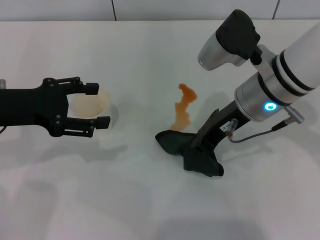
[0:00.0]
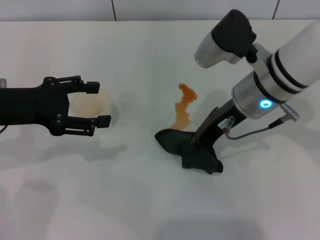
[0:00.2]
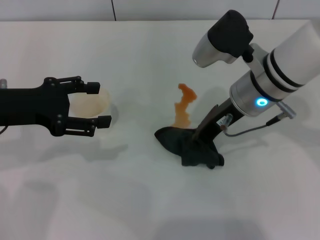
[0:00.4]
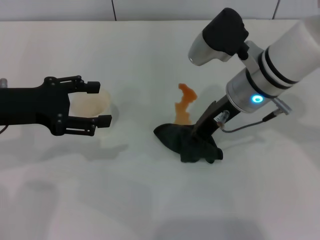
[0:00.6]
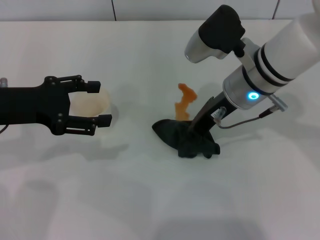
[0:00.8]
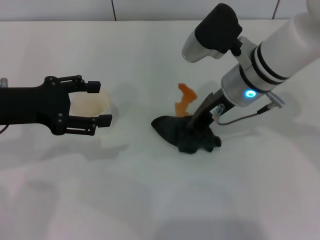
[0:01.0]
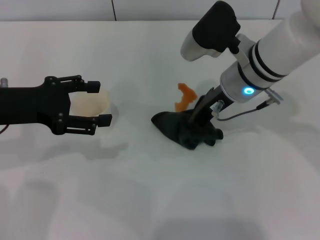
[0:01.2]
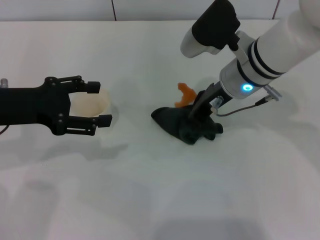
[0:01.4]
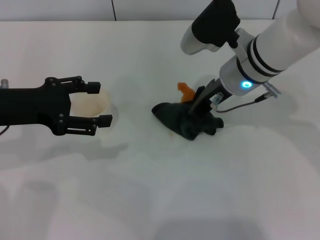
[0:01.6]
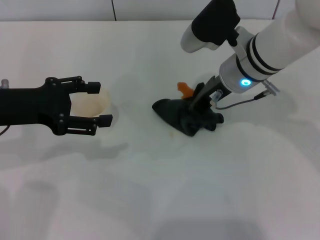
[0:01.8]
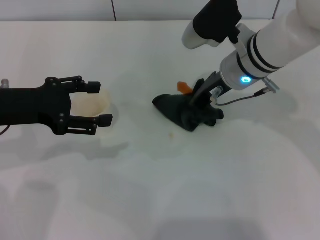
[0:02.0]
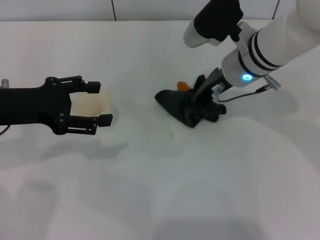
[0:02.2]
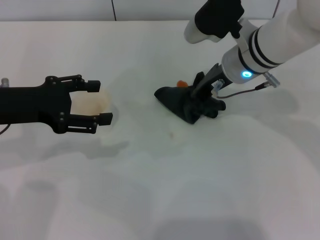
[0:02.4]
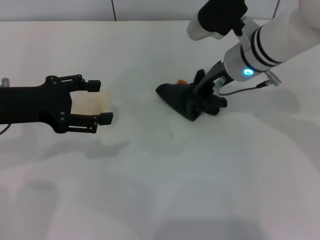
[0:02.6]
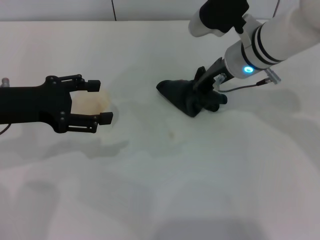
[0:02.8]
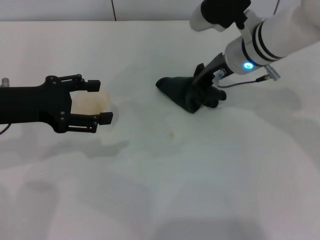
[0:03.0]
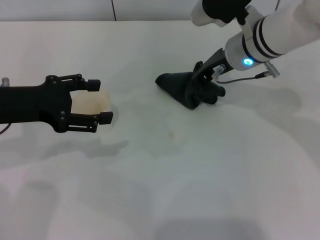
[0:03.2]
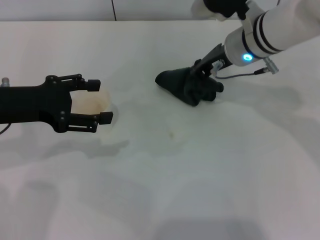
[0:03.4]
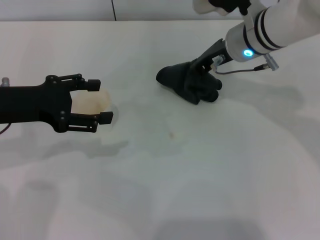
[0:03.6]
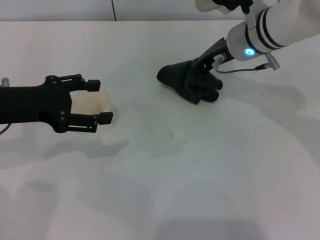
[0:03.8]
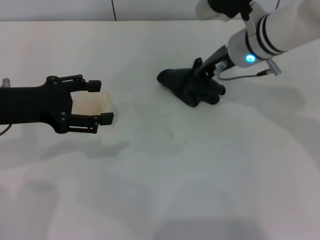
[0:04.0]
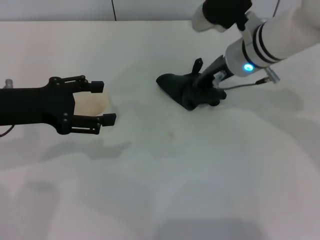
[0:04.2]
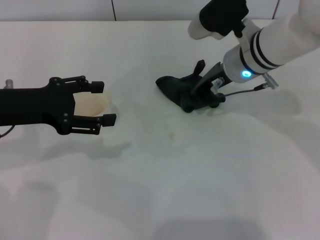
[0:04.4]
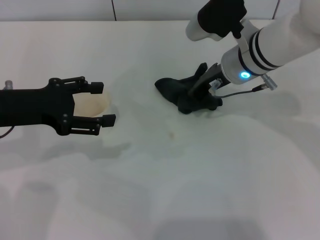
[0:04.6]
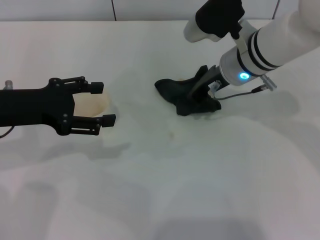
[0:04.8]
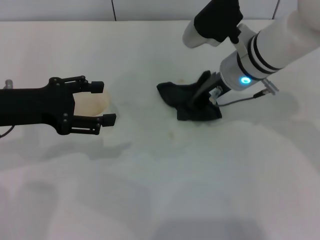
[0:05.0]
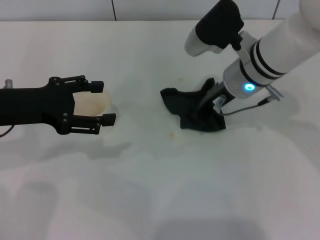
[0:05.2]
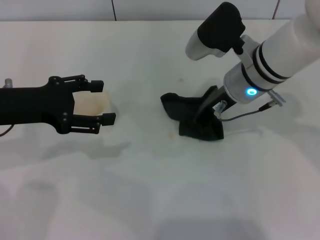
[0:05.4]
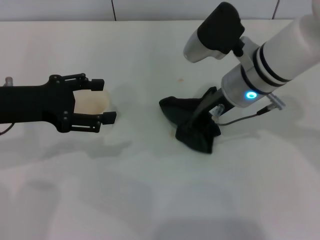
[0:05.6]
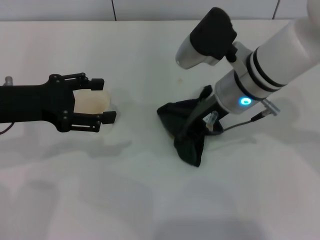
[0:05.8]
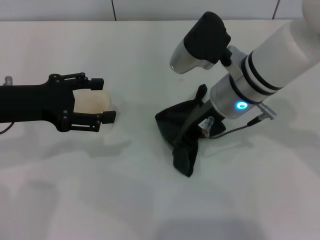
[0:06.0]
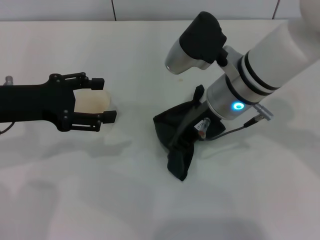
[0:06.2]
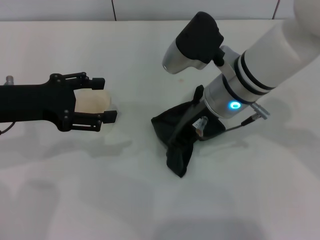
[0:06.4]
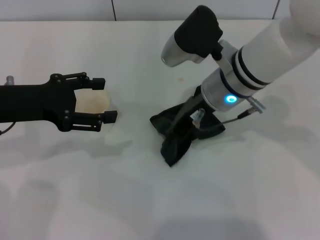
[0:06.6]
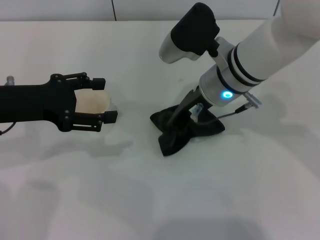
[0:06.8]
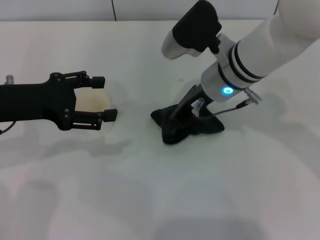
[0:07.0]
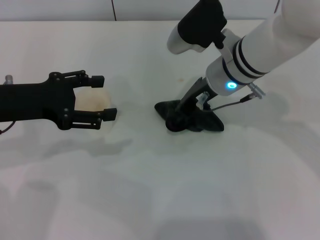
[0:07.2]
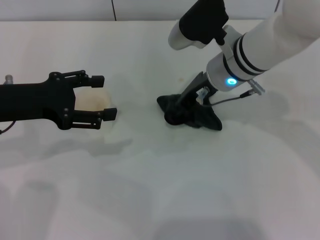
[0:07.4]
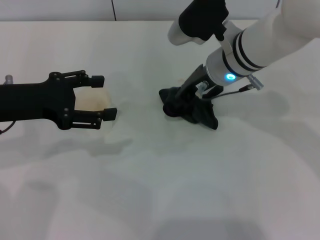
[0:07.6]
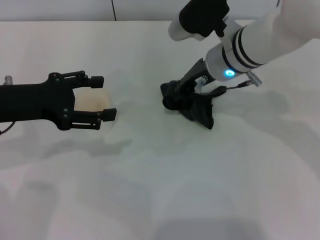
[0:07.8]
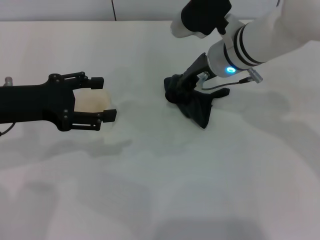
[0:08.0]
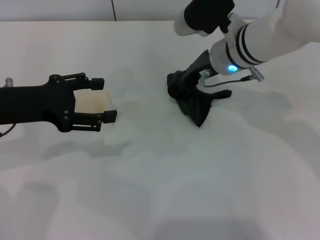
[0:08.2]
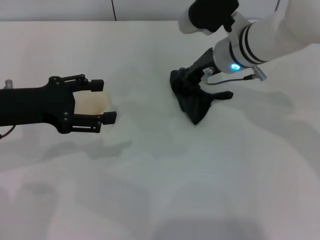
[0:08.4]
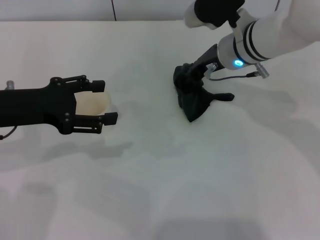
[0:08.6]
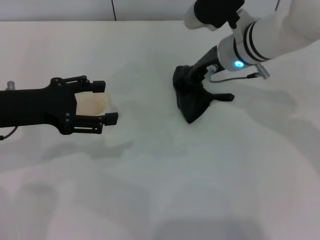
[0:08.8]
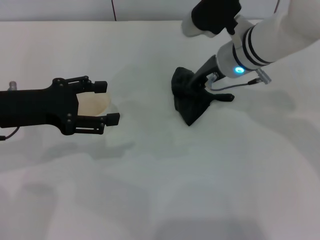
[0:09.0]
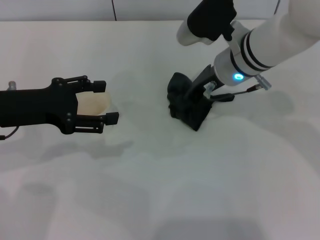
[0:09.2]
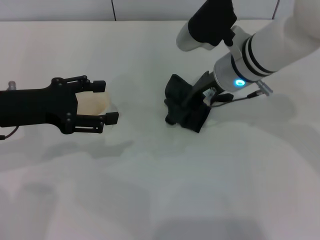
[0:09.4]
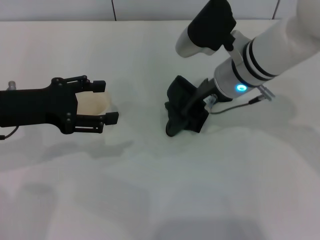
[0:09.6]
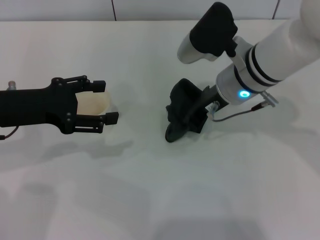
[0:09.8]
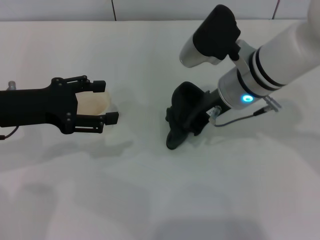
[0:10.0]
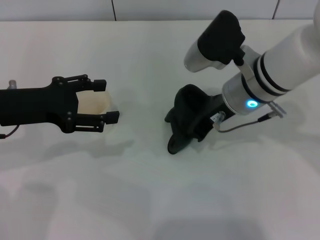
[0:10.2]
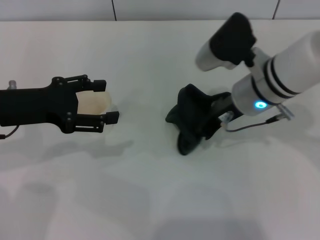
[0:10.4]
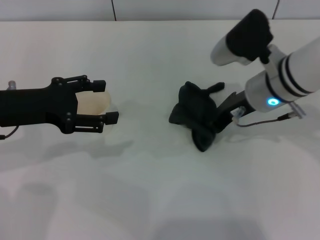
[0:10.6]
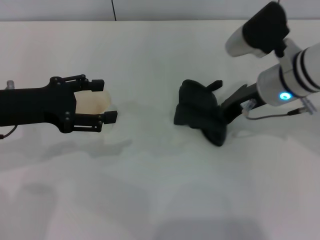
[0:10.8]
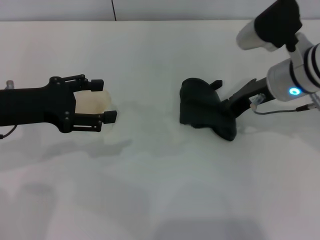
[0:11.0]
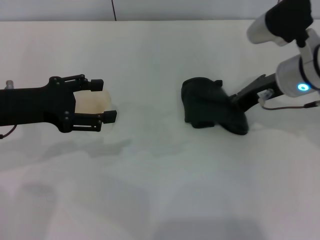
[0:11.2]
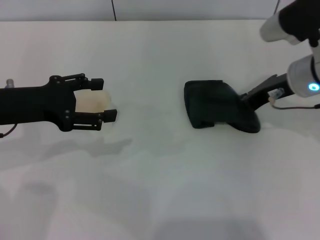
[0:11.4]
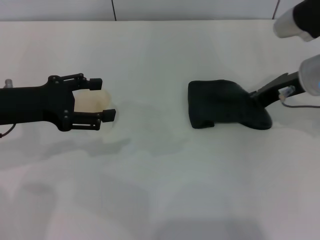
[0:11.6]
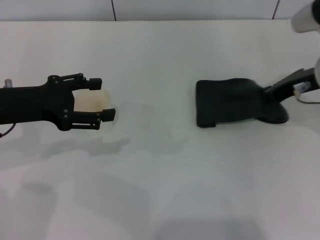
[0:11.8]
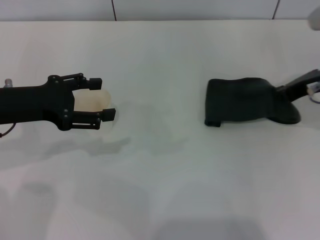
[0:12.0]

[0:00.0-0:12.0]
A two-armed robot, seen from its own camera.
0:00.0 to 0:01.6: The right gripper moves roughly 5 cm.
0:01.6 to 0:04.4: The grippers stay close to where they were, moving slightly.
0:04.4 to 0:06.0: The right gripper shifts approximately 5 cm backward.
0:06.0 to 0:07.6: The right gripper moves forward, about 5 cm.
0:07.6 to 0:09.0: The grippers move only a little.
0:09.0 to 0:10.4: The right gripper is displaced backward by about 5 cm.
0:10.4 to 0:12.0: The right gripper goes approximately 15 cm to the right.

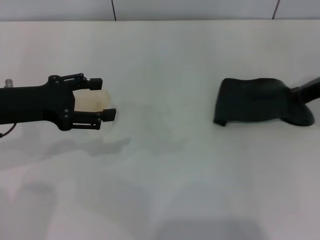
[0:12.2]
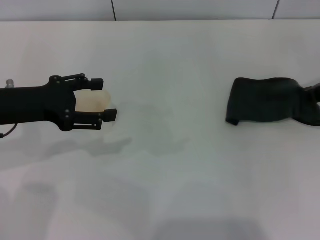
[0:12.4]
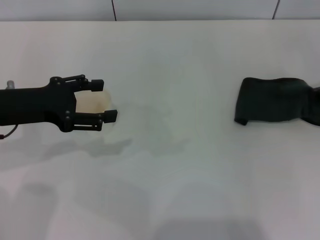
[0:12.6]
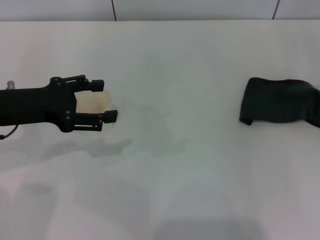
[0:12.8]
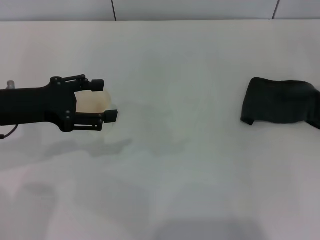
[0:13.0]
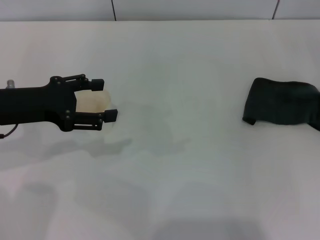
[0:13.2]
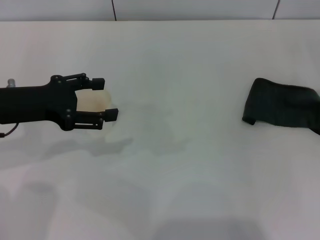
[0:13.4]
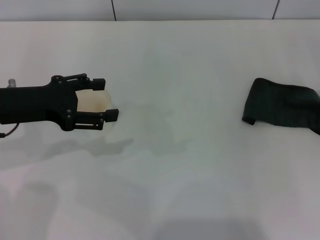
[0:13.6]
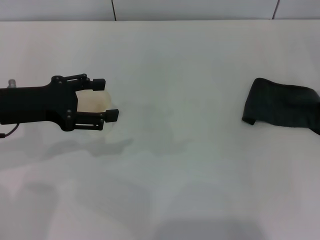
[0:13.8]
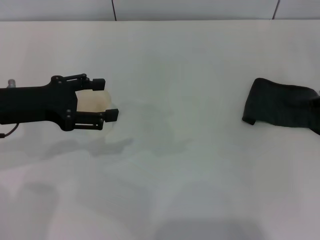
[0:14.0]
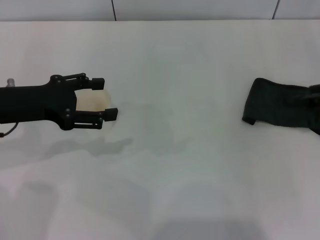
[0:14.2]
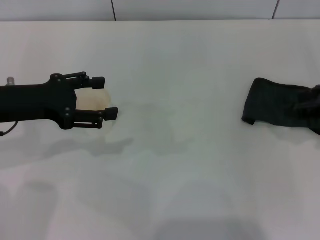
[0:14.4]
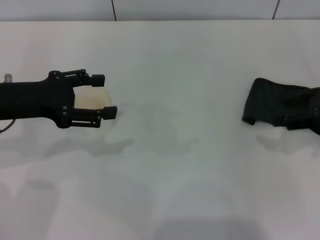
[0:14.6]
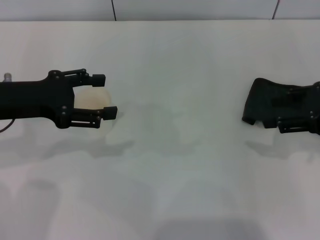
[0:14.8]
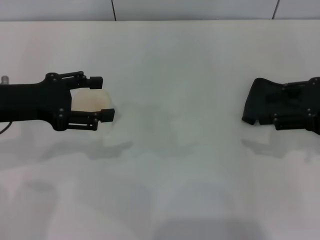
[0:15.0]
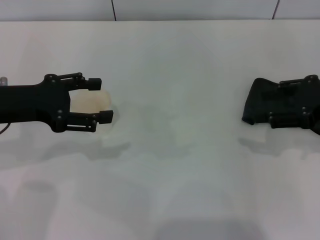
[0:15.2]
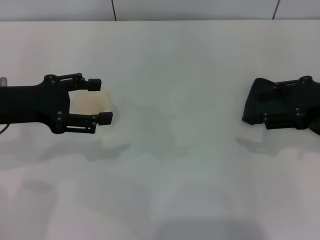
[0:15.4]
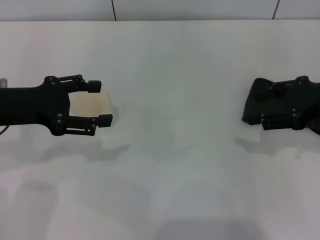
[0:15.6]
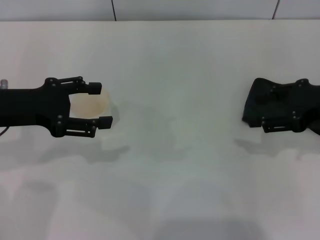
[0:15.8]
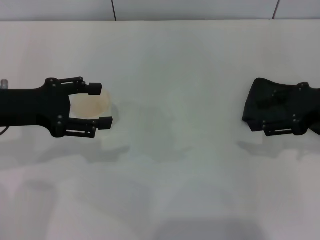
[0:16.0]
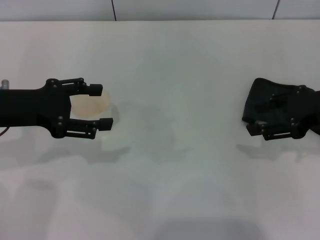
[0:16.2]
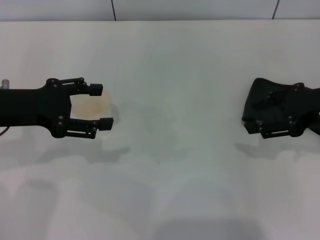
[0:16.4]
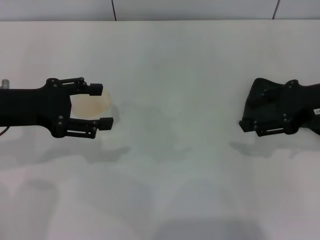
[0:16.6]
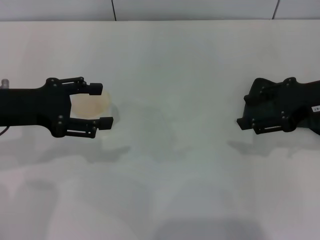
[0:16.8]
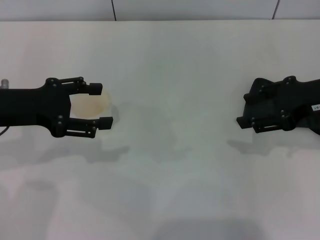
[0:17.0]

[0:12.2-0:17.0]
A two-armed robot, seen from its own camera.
Step, 0:13.8 to 0:15.0: Place the rag on the table with the right gripper.
0:12.2 to 0:13.8: The right gripper shifts by roughly 5 cm.
0:13.8 to 0:15.4: The right gripper changes place by about 5 cm, and opens up.
0:15.4 to 0:17.0: The grippers make only small movements.

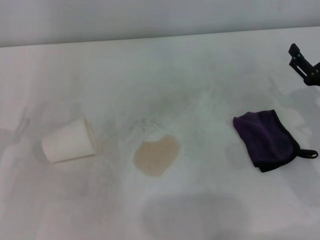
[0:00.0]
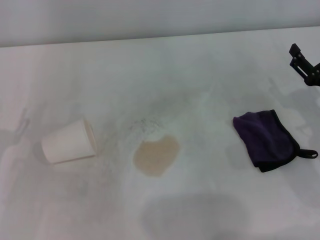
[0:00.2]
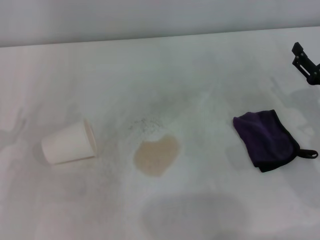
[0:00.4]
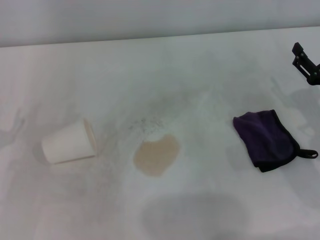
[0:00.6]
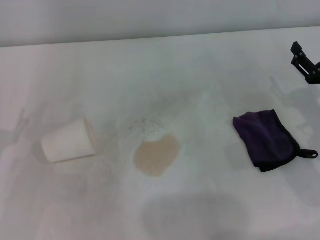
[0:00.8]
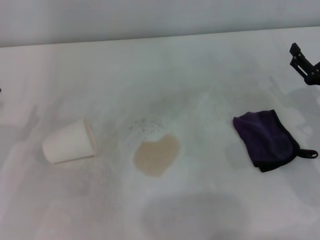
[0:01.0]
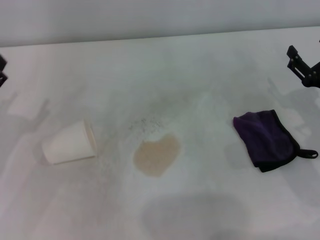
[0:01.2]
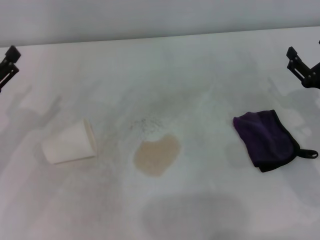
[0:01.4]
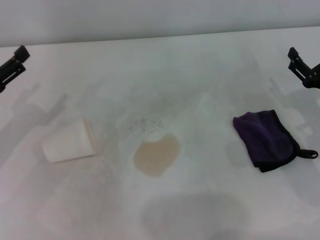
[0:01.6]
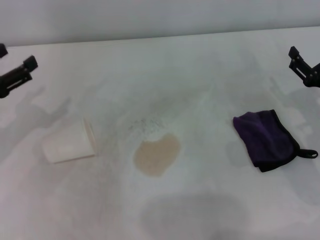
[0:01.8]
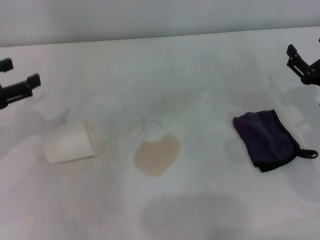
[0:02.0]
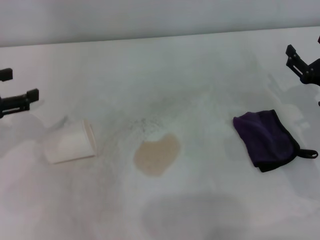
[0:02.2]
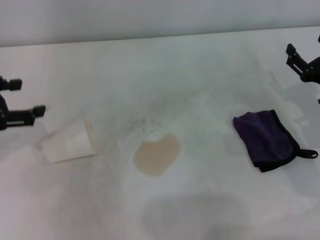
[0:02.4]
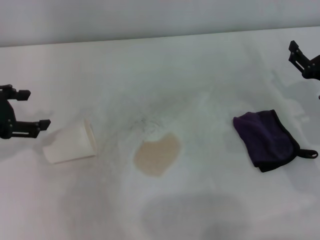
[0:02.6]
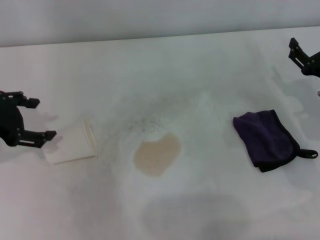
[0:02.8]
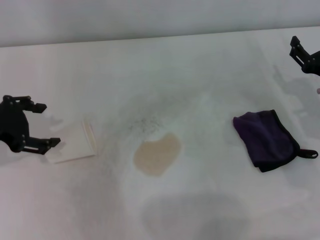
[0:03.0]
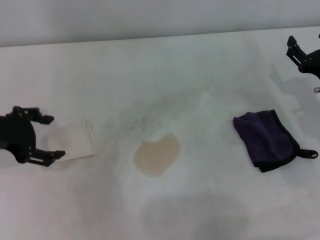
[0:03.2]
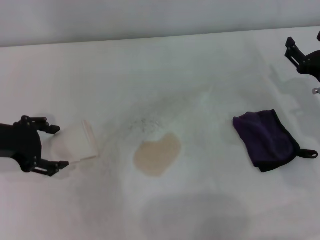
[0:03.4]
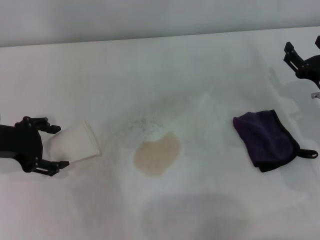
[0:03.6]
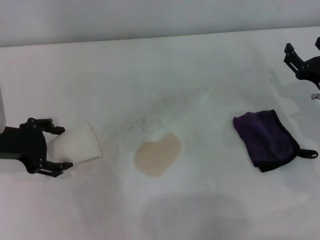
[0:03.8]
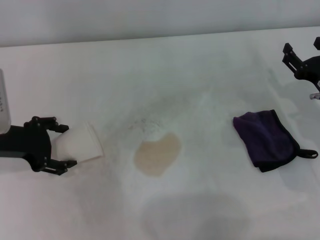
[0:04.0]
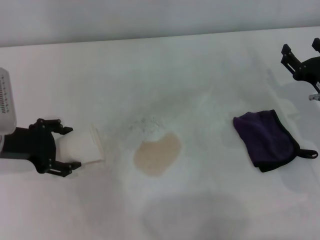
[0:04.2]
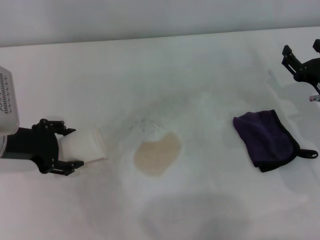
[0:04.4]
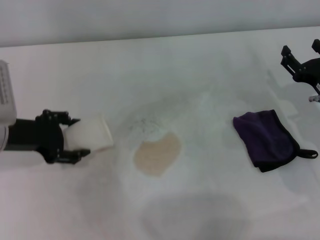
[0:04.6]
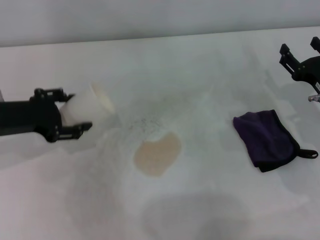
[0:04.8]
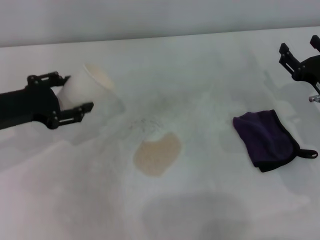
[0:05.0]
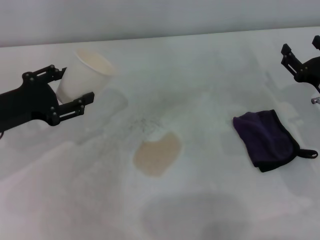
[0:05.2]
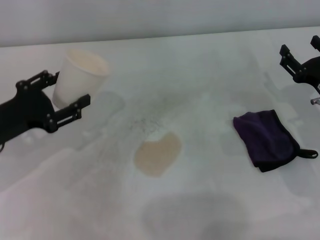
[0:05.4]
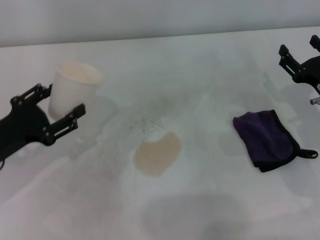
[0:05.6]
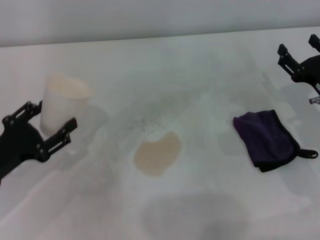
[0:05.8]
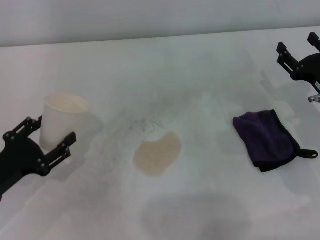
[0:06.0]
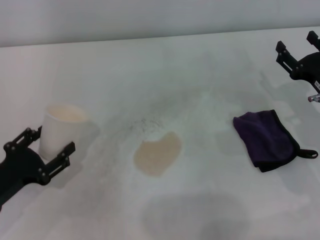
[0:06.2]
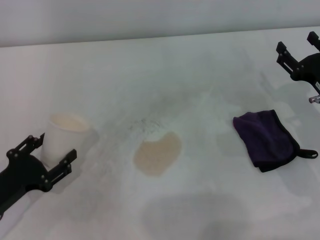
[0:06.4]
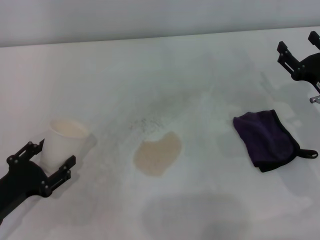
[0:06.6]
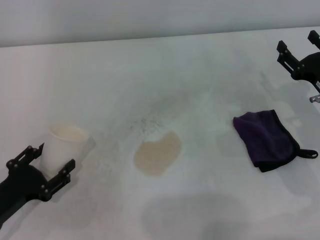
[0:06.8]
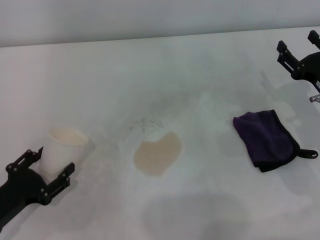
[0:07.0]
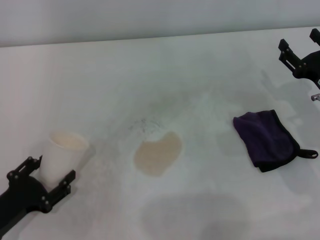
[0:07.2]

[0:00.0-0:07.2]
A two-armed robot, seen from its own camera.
Step, 0:00.0 to 0:04.2: Grasp the paper cup with the left gripper.
0:00.0 to 0:01.4: The left gripper changes place by about 5 cm.
0:01.4 to 0:02.8: The left gripper travels upward by approximately 5 cm.
0:02.8 to 0:04.4: The left gripper is displaced downward by some 5 cm.
0:04.4 to 0:05.8: The left gripper is displaced backward and downward by roughly 10 cm, and closes up.
0:05.8 to 0:07.2: The left gripper is displaced backward and downward by some 10 cm.
